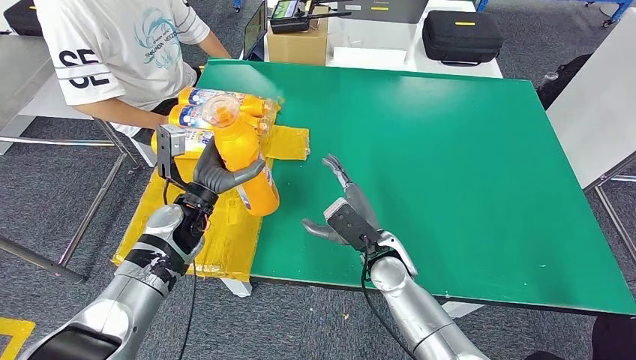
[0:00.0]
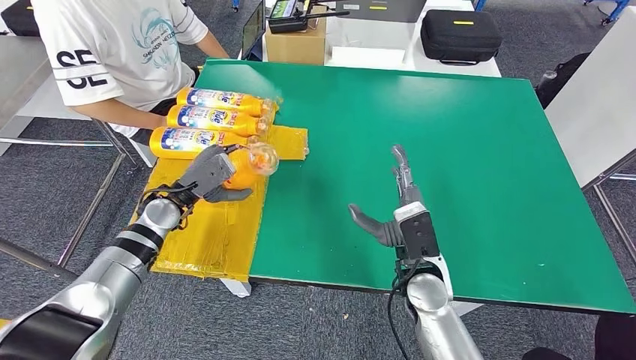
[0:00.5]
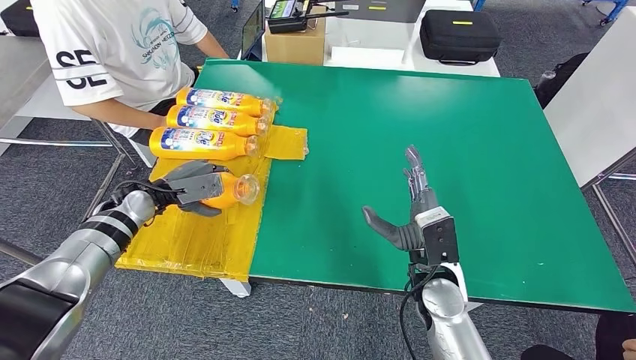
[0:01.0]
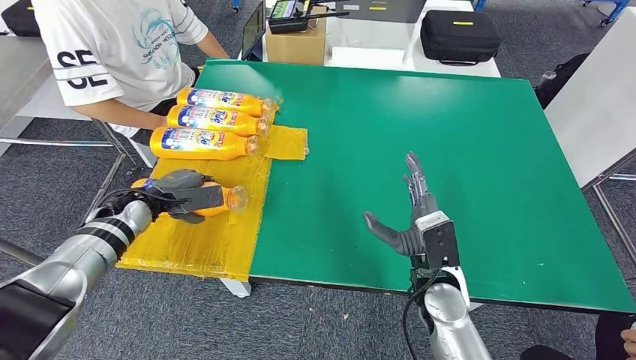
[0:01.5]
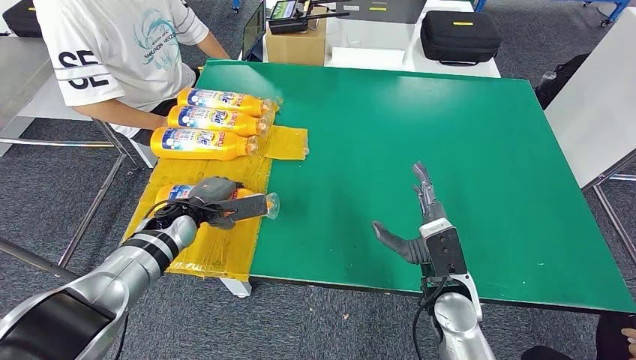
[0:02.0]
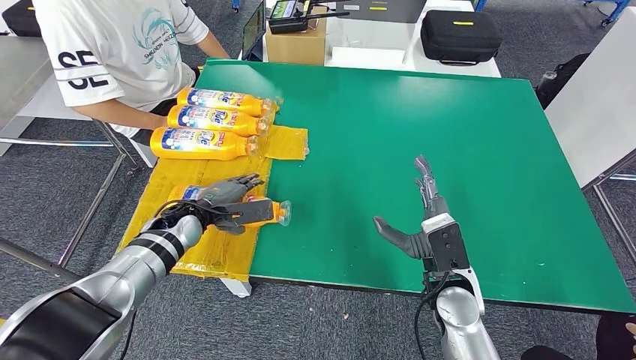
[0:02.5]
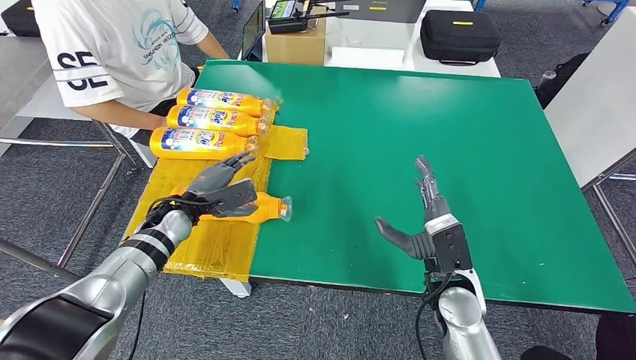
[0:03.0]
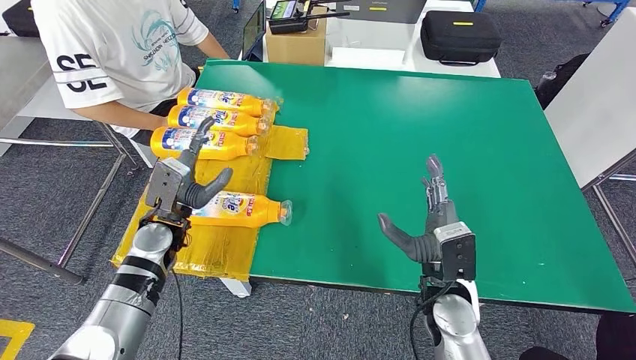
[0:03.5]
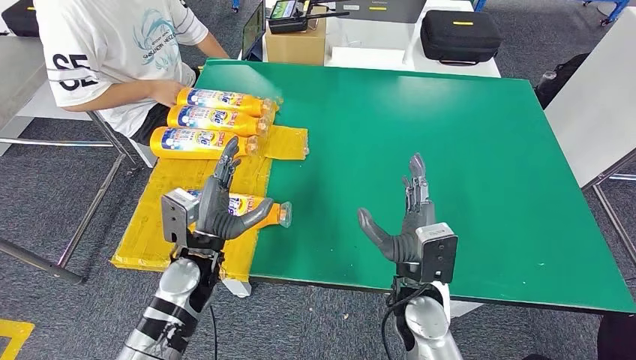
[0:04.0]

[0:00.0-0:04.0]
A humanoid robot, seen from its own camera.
Step, 0:00.0 to 0:04.0: Flip the fast-moving consumer goods bottle to the front side.
0:00.0 to 0:02.0: The right hand heads to the right and backward, covering some 10 cm; the left hand moves roughly 15 cm to the left and comes back.
0:02.0 to 0:04.0: The left hand goes about 15 cm backward and to the right. The right hand goes about 5 cm to the left.
